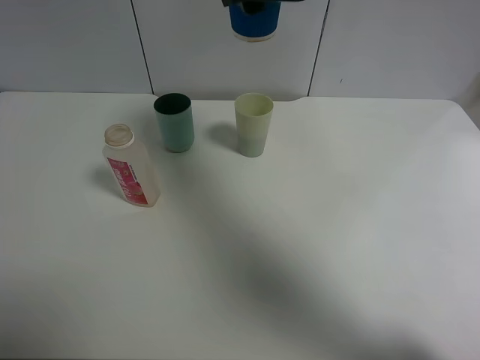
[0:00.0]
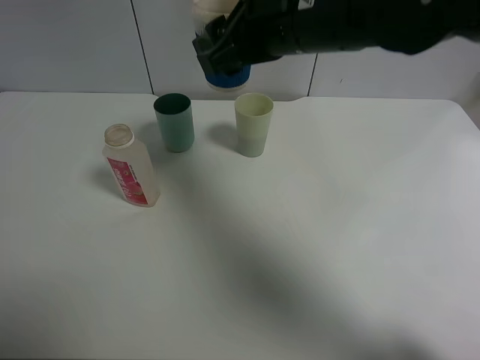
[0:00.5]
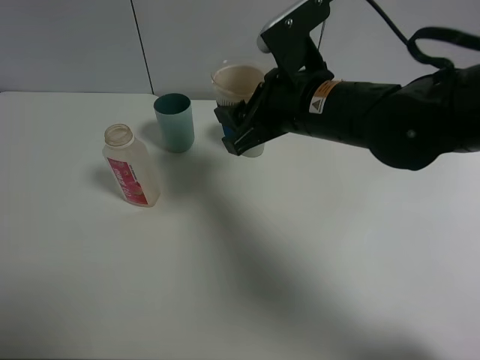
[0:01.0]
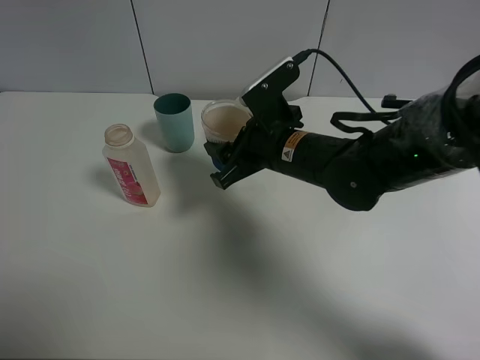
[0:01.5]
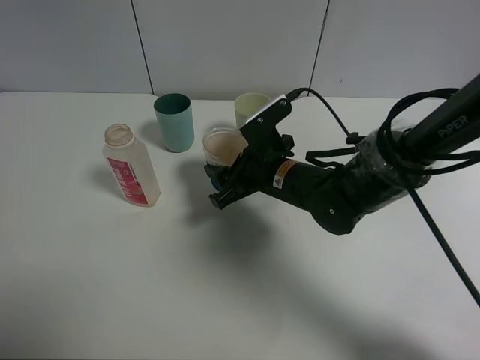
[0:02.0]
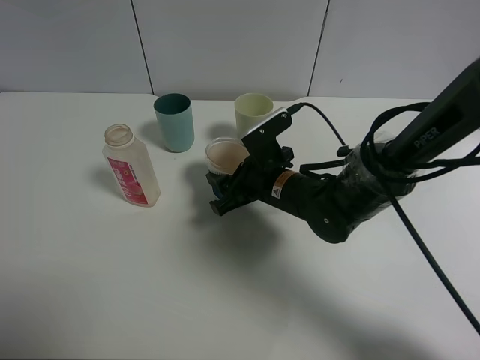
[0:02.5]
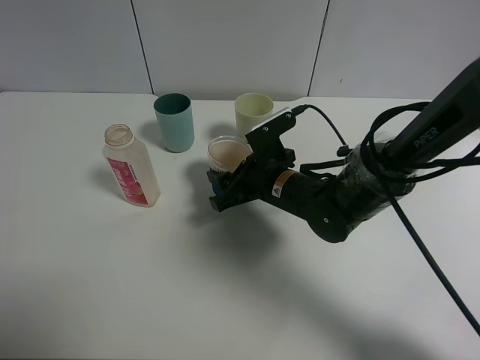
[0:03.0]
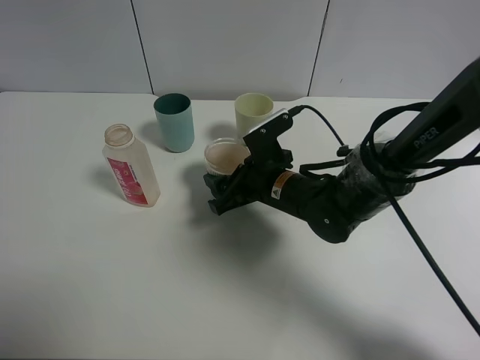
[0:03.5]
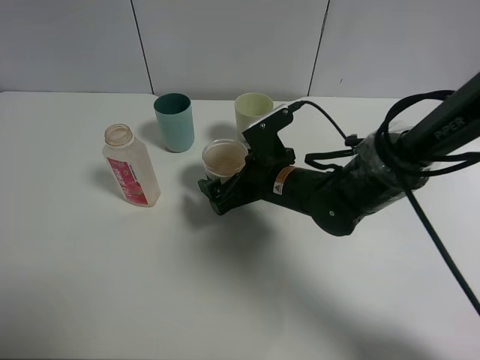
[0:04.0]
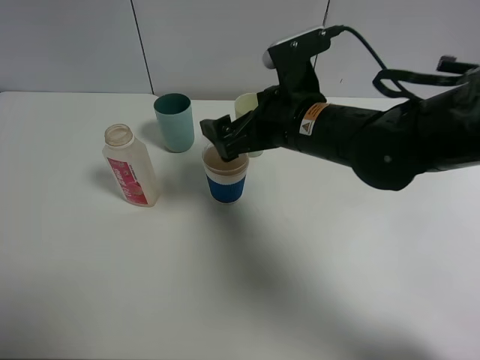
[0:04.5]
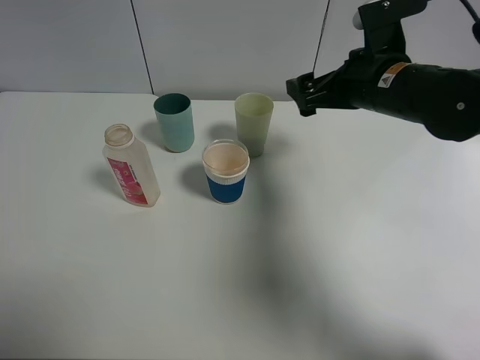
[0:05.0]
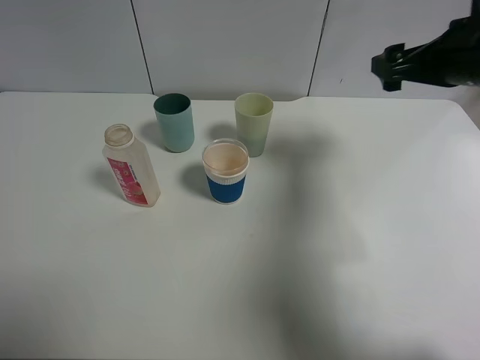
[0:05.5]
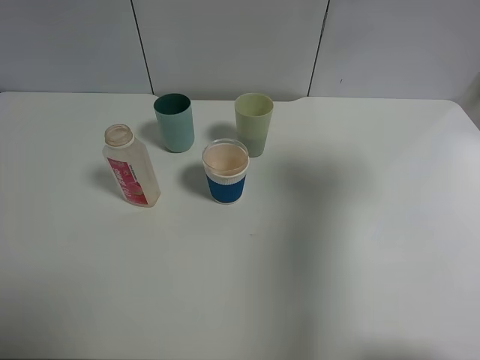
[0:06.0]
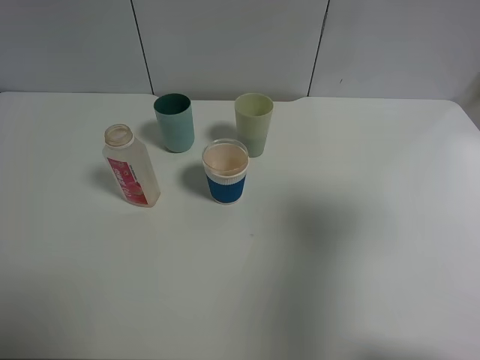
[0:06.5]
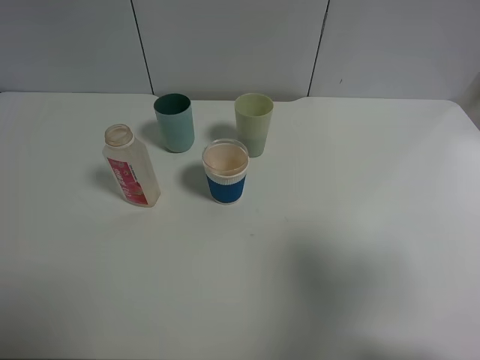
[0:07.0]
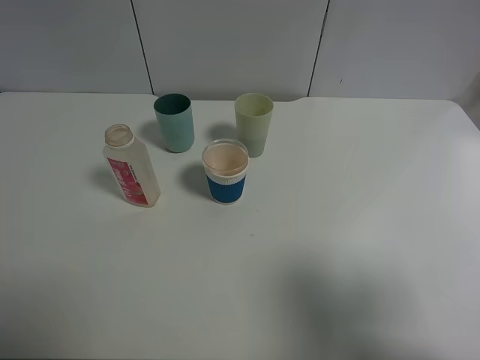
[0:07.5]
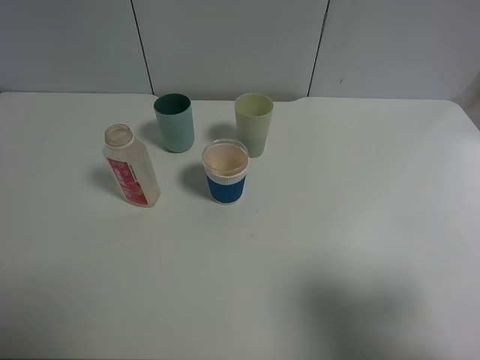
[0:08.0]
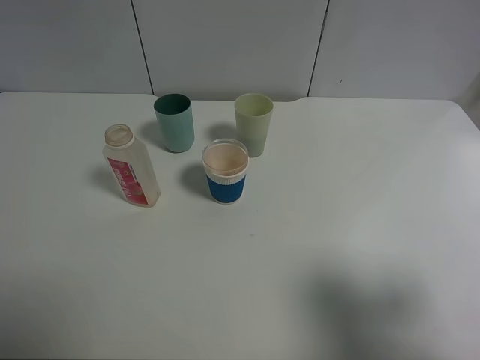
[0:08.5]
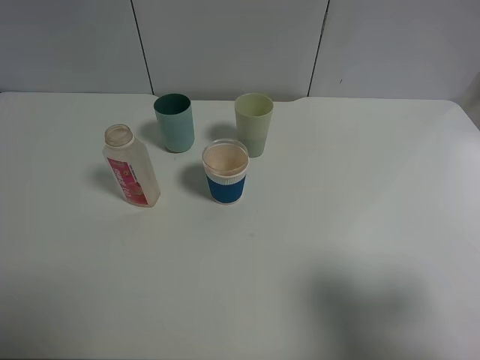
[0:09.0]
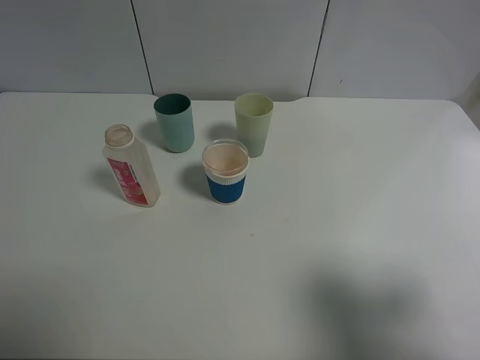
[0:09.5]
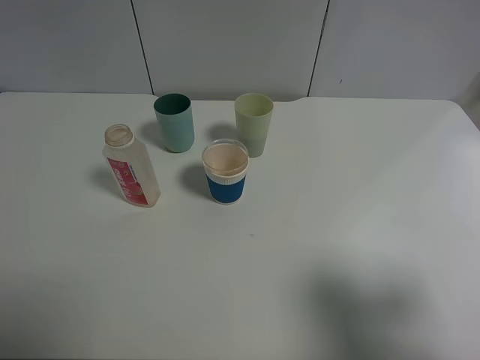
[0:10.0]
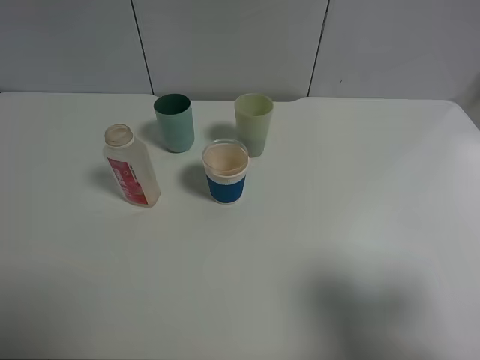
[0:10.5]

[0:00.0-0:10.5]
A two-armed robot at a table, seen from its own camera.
Task of the whole recording: use a clamp to hold the bottle of the drink, pour the beverage into a random cup, then clamp the cup containing the drink and pour the drink into another random cup.
Step, 0:00.0 to 0:04.0: Place the paper cup on the table with right gripper.
0:00.0 to 0:02.0: The right gripper travels downward by roughly 25 cm.
0:02.0 to 0:04.0: The right gripper opens up.
0:04.0 to 0:06.5: The right gripper goes approximately 40 cm upward, to the right and backward.
0:06.5 to 0:08.5: The right gripper heads backward and downward, covering roughly 15 cm.
0:08.5 to 0:10.5: Both grippers stay about where they are.

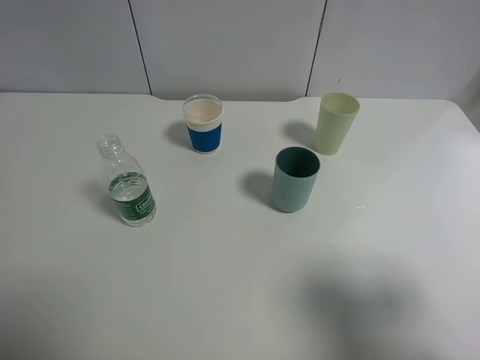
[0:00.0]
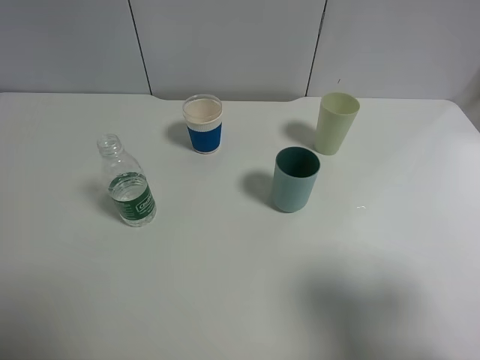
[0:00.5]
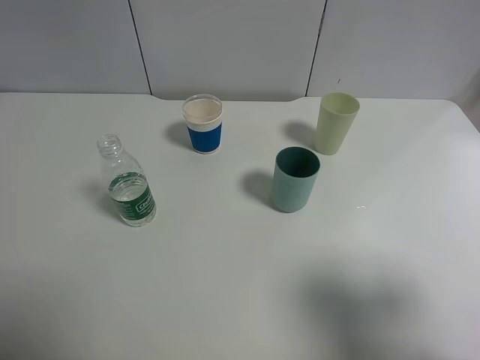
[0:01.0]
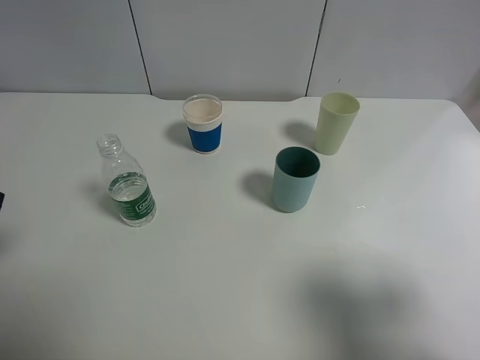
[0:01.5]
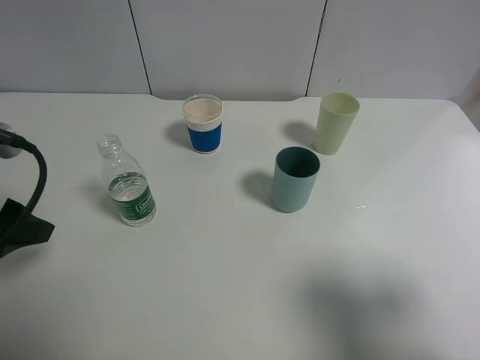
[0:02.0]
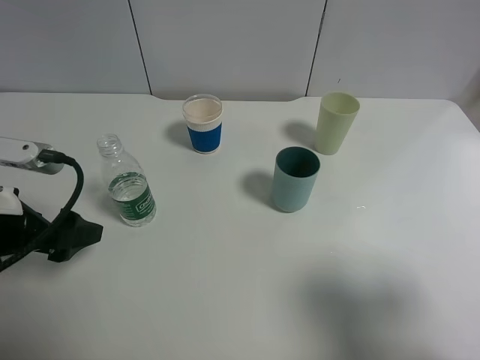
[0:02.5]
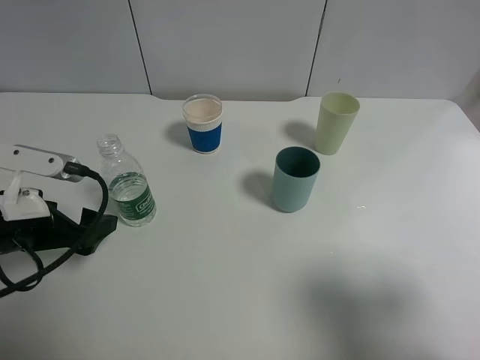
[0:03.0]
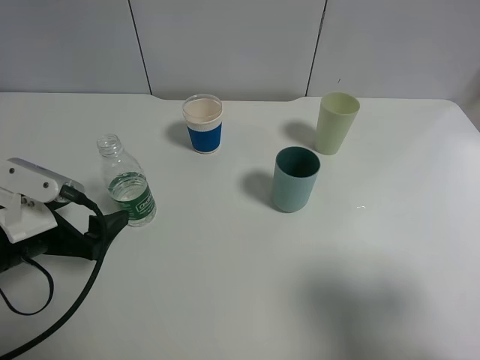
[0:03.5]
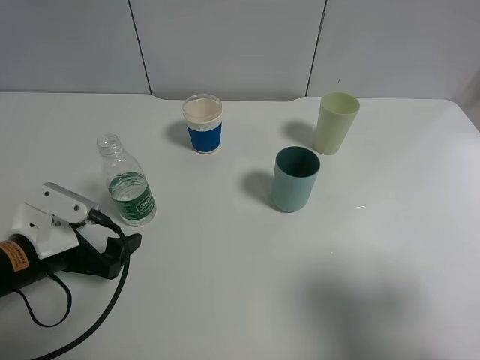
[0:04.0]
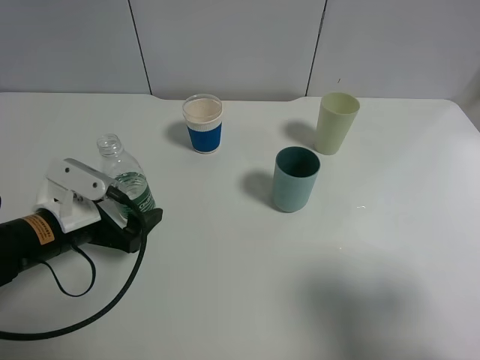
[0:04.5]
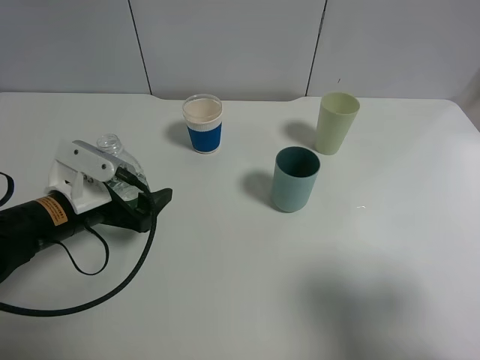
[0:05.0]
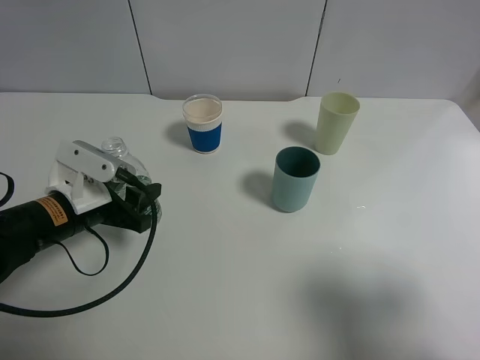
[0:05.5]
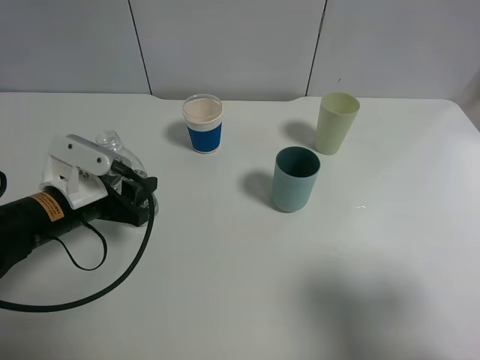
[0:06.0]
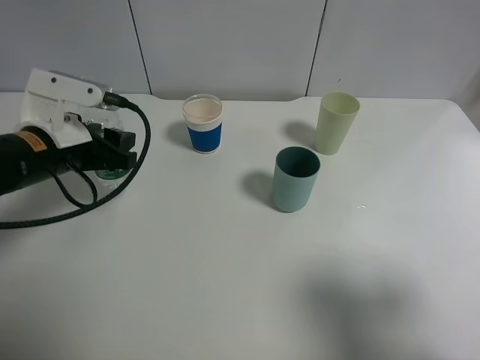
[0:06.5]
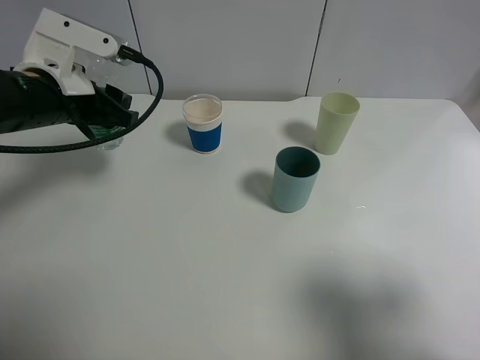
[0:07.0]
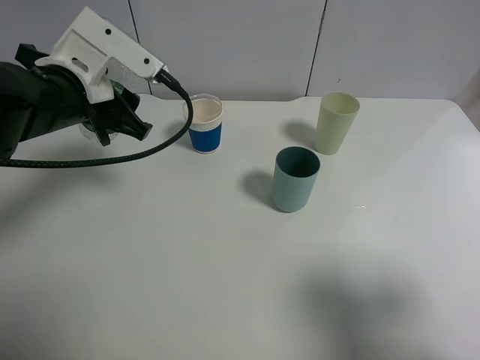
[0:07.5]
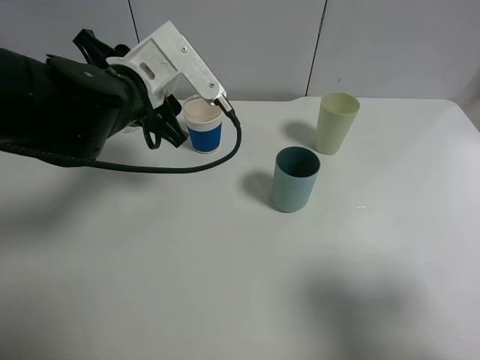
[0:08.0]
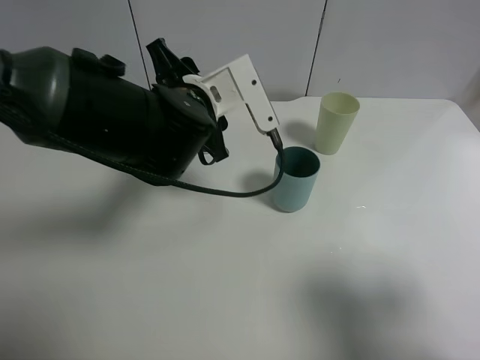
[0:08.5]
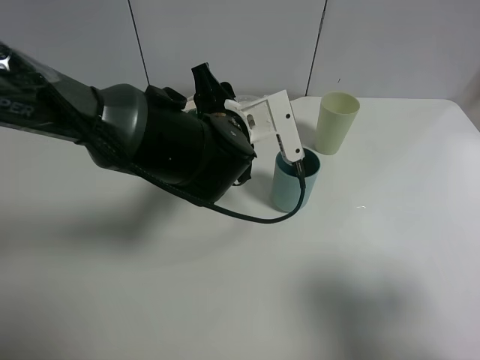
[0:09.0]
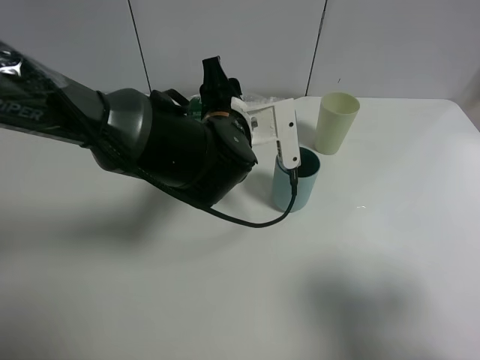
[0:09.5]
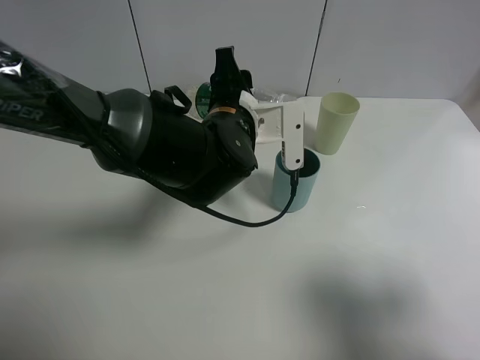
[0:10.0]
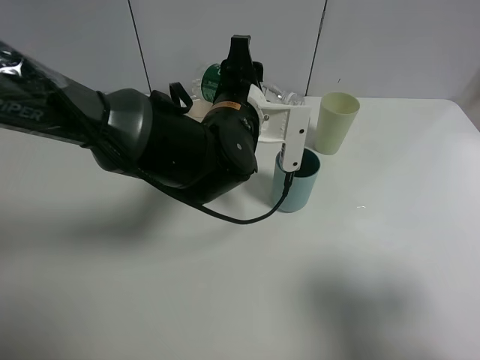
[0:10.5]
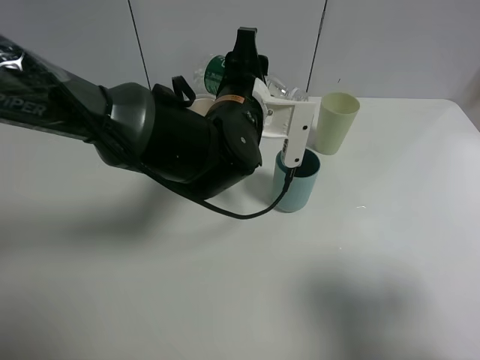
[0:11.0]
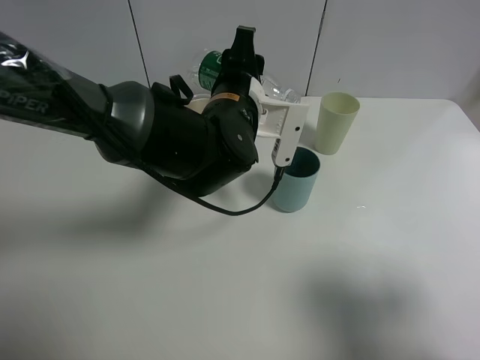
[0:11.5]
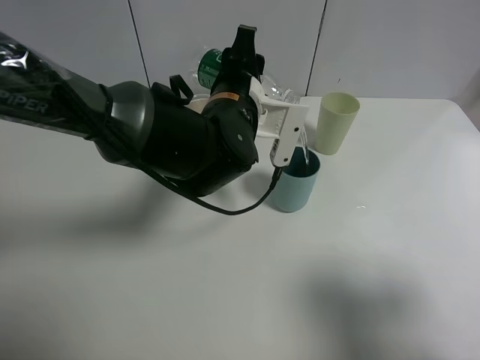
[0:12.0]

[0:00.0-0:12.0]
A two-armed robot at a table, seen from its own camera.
Task of the whole recording: use a clamp to hold the bottle of the drink, pour the beverage into a random cup, then clamp the cup containing the drink and pour the drink into another random cup.
Step, 0:00.0 to 0:05.5: Pick up the water bottle with left gripper.
0:00.0 to 0:02.0: The left gripper goes approximately 15 cm forward.
0:02.0 to 0:04.0: The left gripper heads downward, covering some 15 cm.
0:04.0 to 0:06.0: The left gripper is displaced forward by some 5 cm, and closes its fingers.
0:06.0 to 0:08.0: The left gripper moves upward, to the right and forward, about 15 cm.
0:08.0 to 0:10.0: The left gripper heads to the right and downward, covering roughly 15 cm.
0:10.0 to 0:12.0: There are only small adjustments of the grippers.

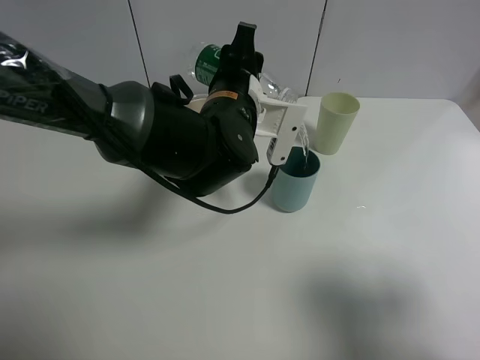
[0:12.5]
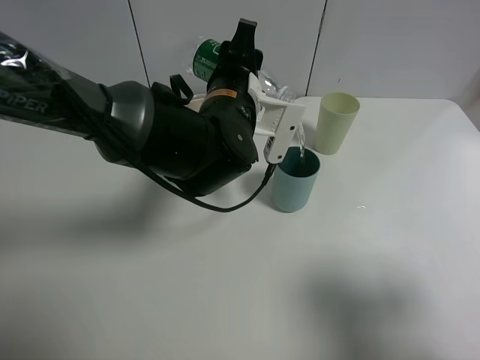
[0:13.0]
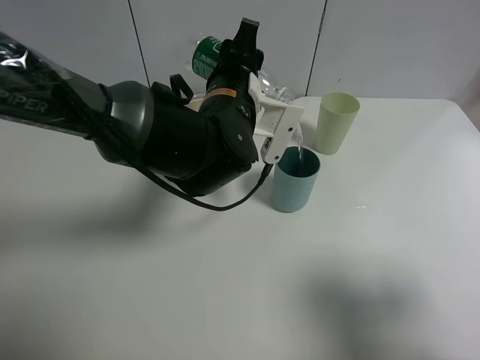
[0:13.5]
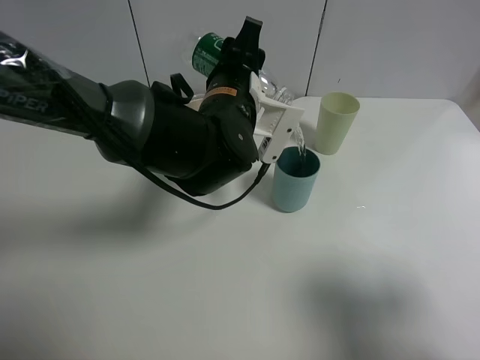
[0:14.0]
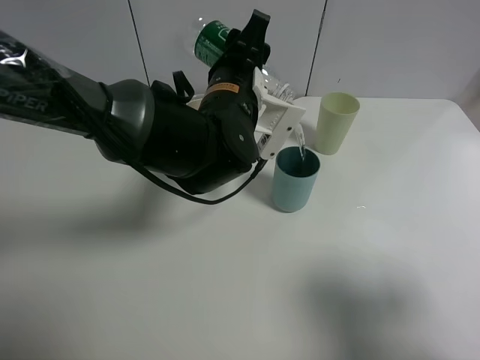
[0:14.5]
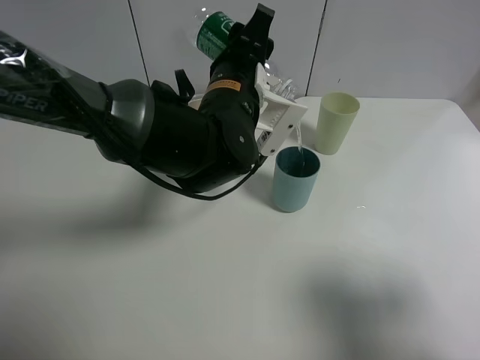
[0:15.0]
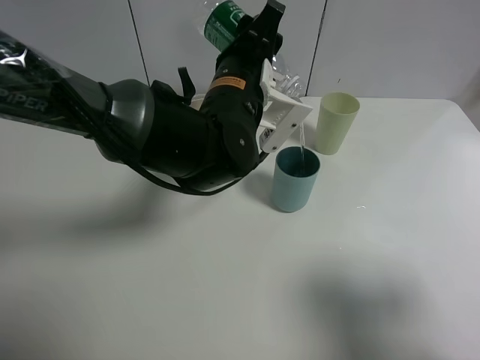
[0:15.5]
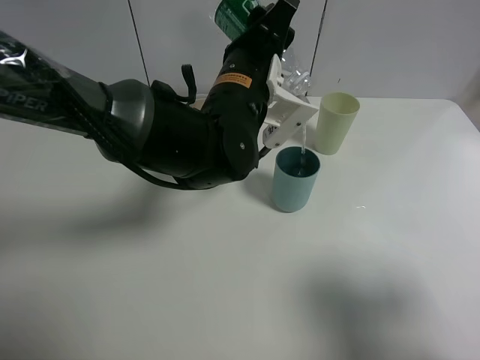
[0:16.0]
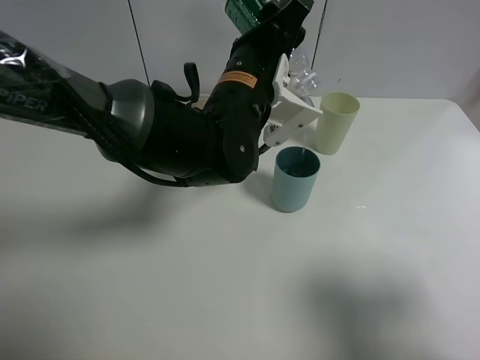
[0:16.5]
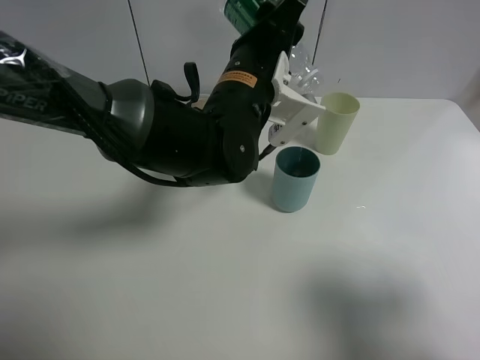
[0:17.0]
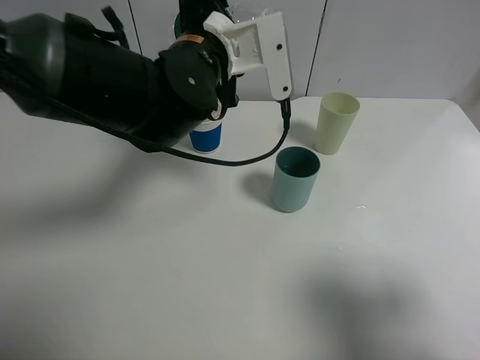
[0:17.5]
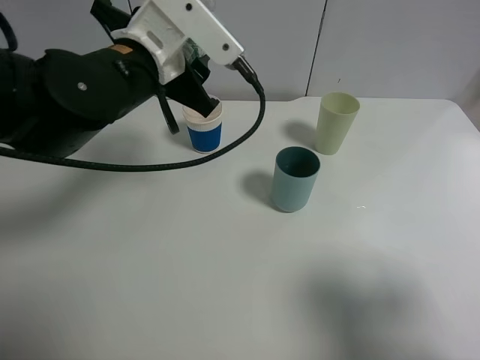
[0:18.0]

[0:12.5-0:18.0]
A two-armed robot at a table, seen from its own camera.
Task of the whole recording: use a clamp to hold the bottle of the drink, pour the beverage into a random cup, then clamp the cup containing the drink and pour the drink into another random cup.
Step, 0:12.5 to 0:17.0: Pour the water into the blue plastic cup with left gripper.
0:12.5 to 0:14.5: There are only small adjustments of the grippers.
0:14.5 to 0:16.0: The grippers move only a little.
0:16.0 to 0:18.0: The left gripper moves to the left, roughly 10 cm.
